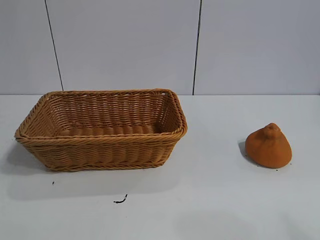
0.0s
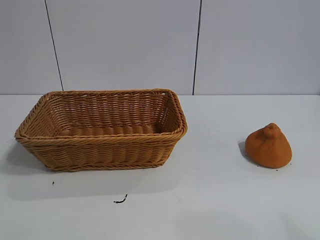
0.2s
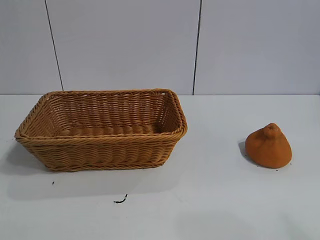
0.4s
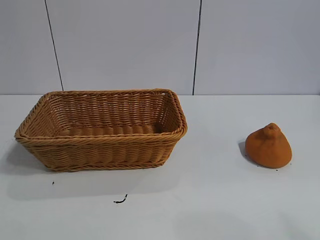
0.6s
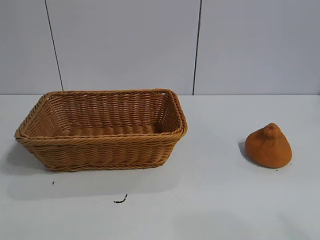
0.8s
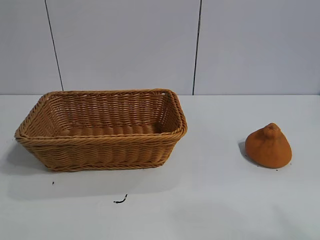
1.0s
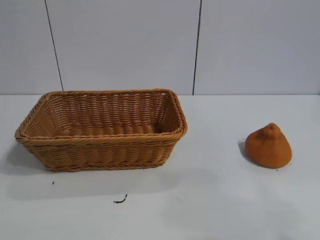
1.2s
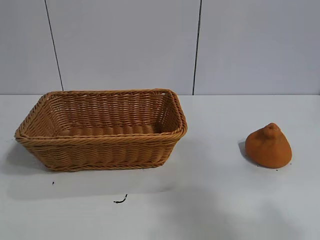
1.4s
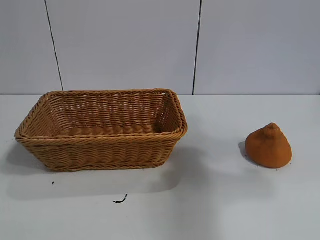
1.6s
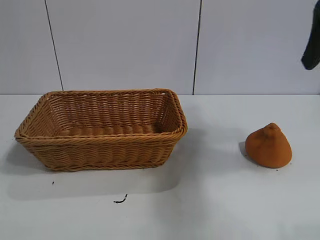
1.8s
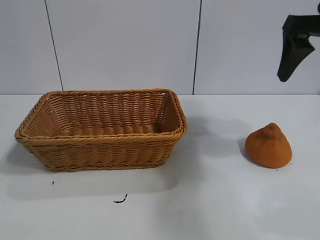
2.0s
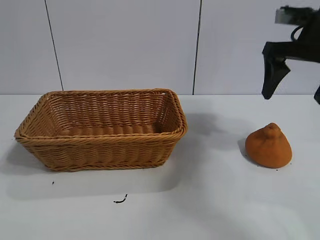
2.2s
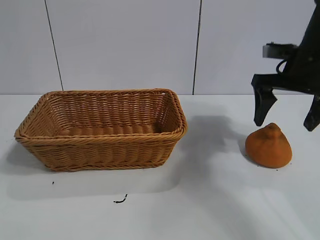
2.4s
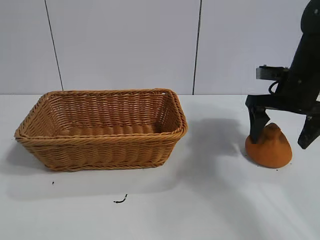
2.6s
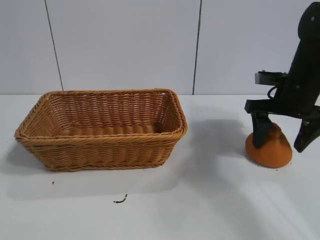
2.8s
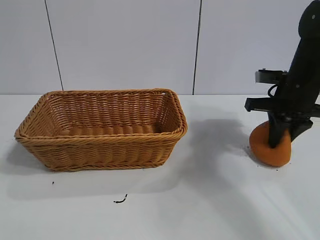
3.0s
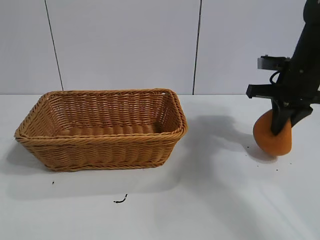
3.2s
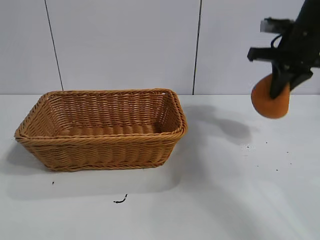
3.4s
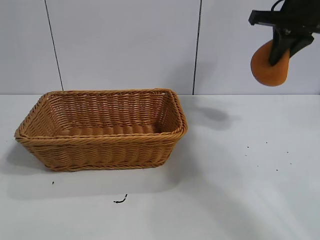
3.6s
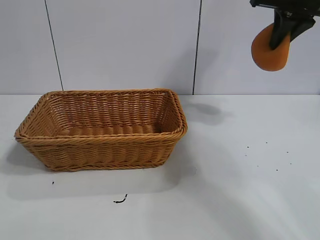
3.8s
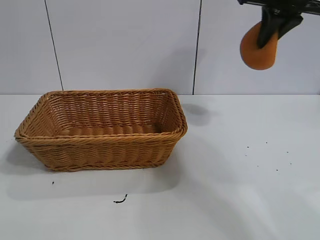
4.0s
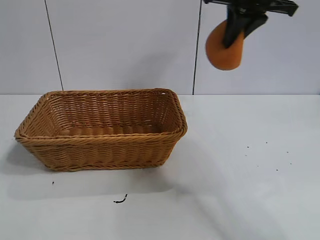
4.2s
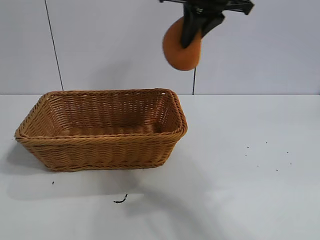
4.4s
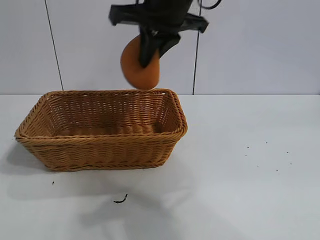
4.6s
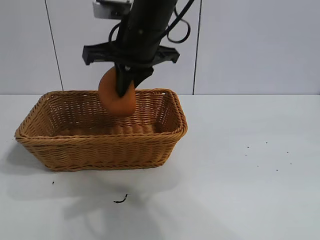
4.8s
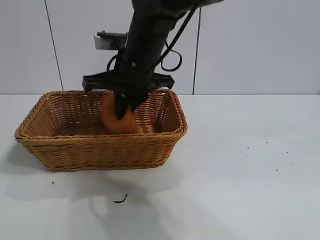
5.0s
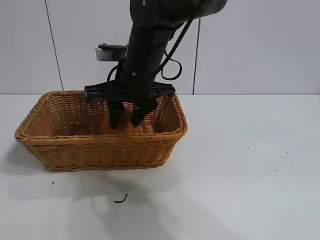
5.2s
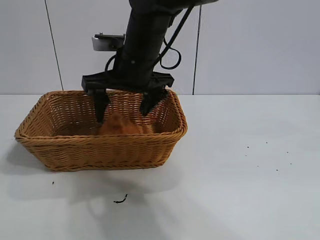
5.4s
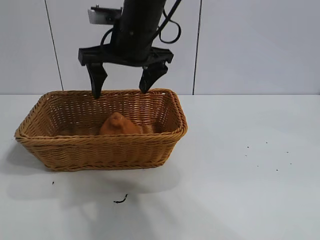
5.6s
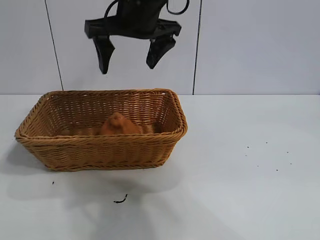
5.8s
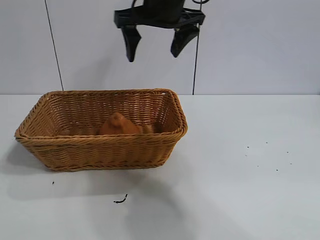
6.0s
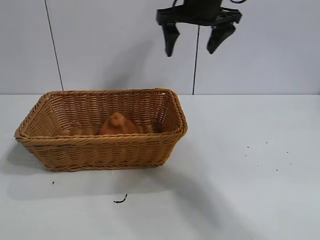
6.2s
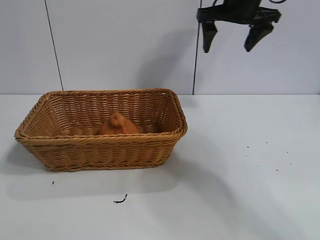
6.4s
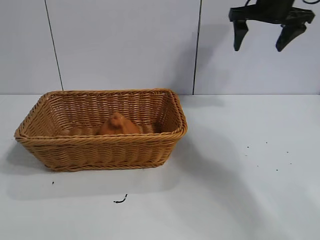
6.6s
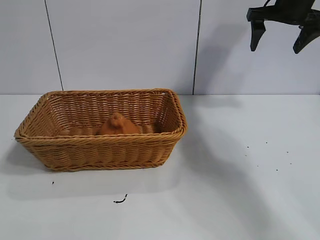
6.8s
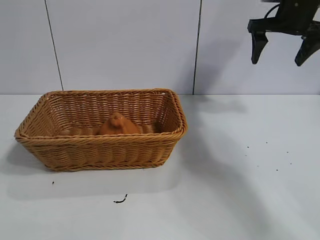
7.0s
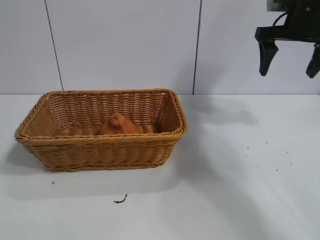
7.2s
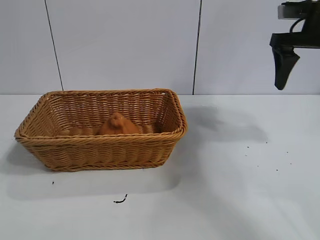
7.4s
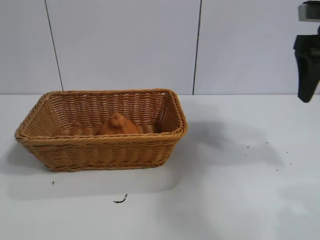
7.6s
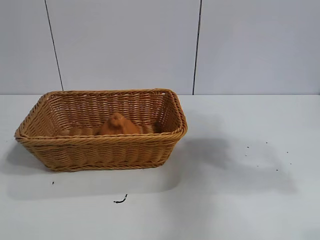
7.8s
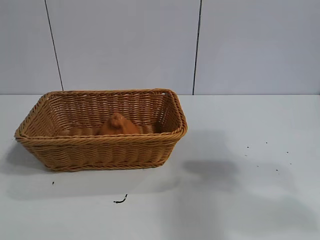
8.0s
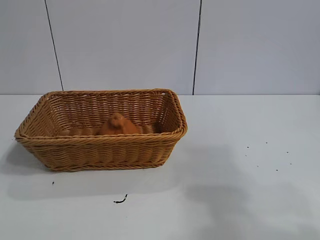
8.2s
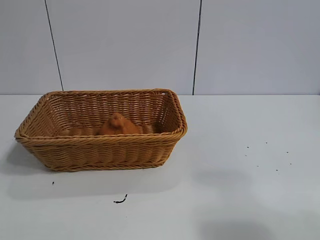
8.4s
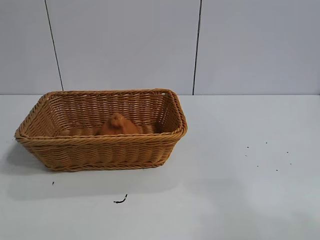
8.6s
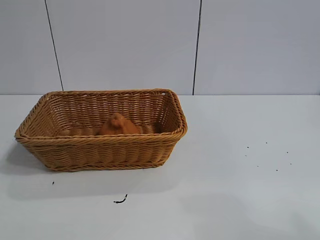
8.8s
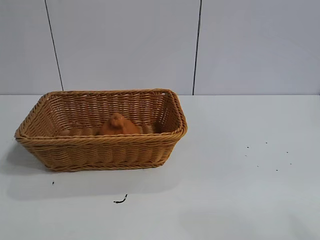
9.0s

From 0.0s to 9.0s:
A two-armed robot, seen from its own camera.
Task of the whole recording: pick up the orange and put it into the basket.
Step, from 0.6s to 2.8s: Grasp the orange with right gripper.
Step, from 3.2s to 5.2s: Place the orange in the basket with right gripper.

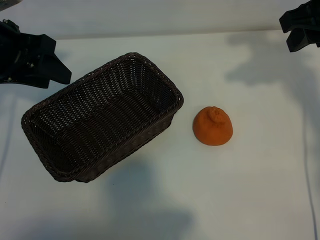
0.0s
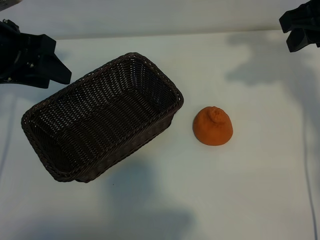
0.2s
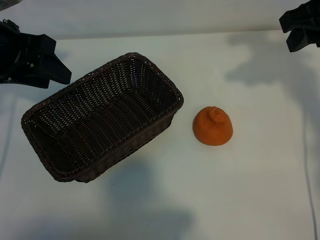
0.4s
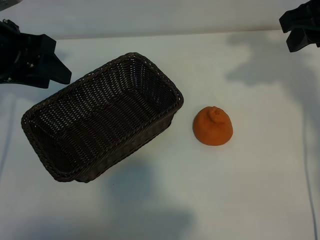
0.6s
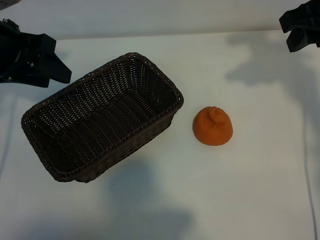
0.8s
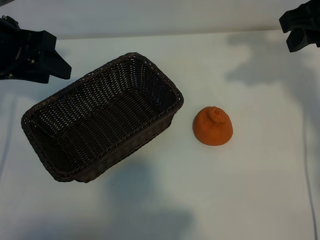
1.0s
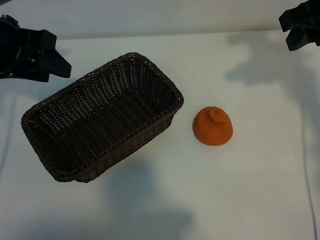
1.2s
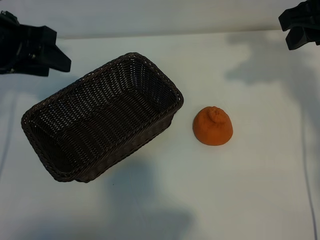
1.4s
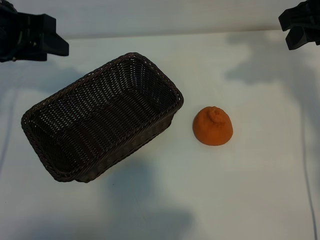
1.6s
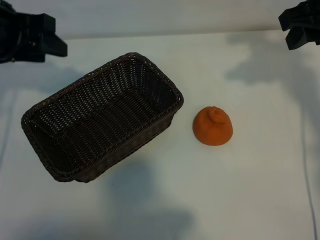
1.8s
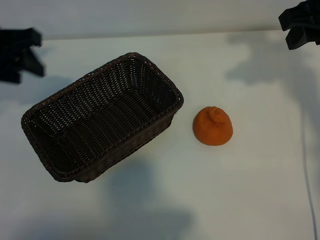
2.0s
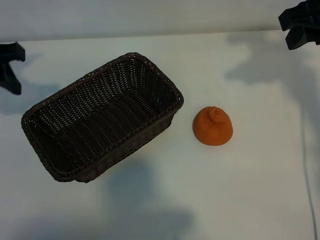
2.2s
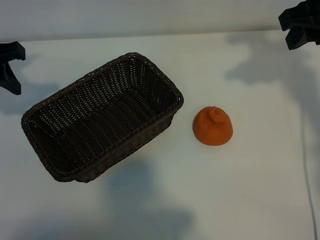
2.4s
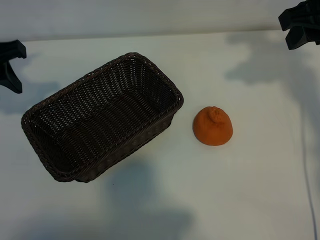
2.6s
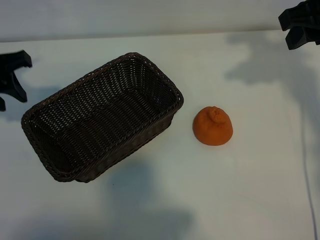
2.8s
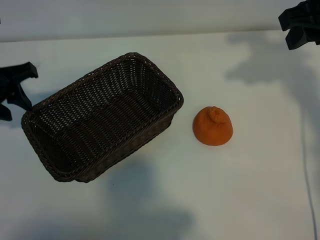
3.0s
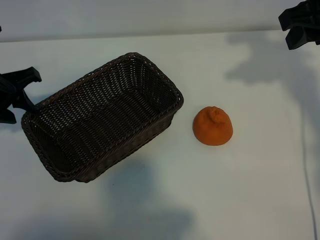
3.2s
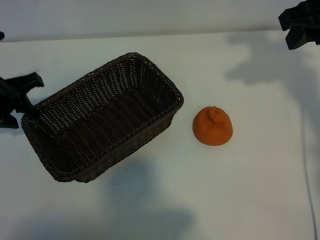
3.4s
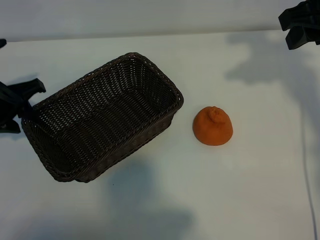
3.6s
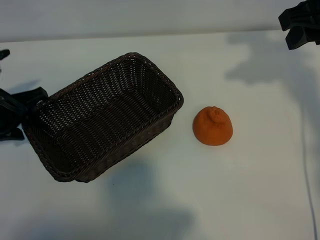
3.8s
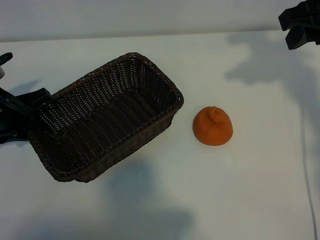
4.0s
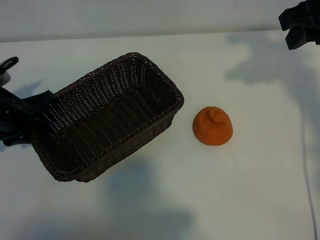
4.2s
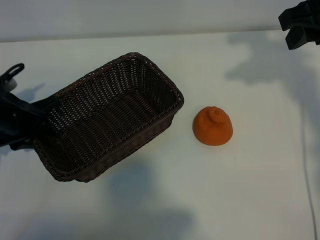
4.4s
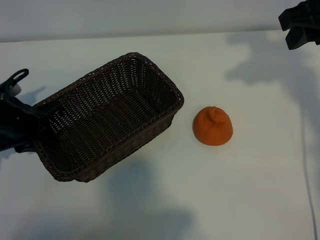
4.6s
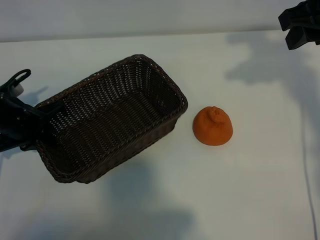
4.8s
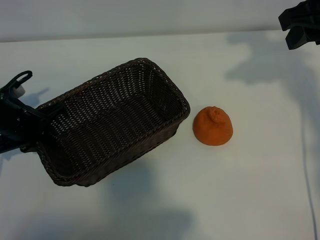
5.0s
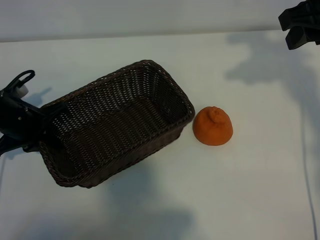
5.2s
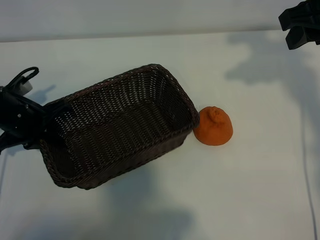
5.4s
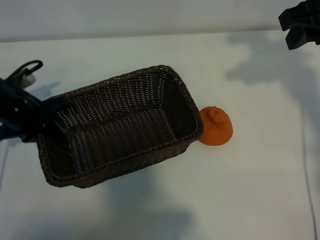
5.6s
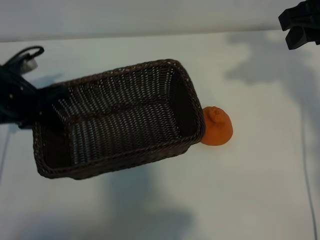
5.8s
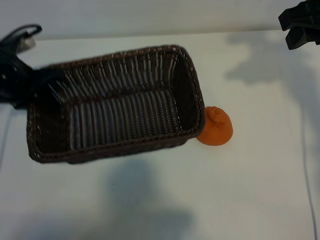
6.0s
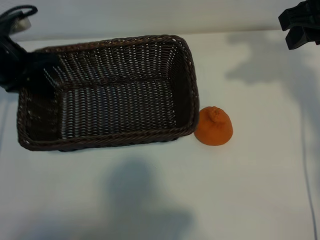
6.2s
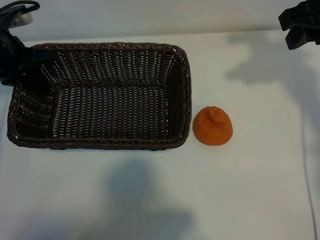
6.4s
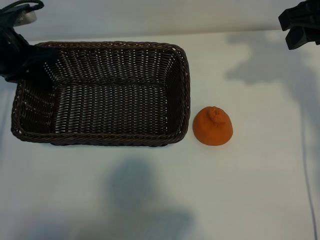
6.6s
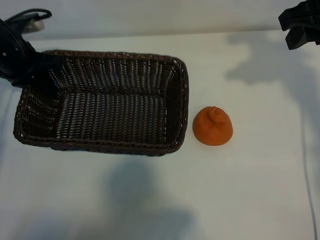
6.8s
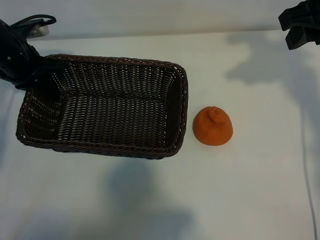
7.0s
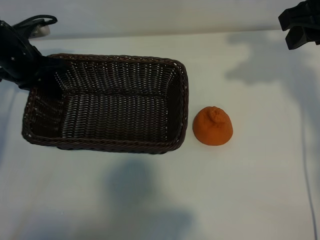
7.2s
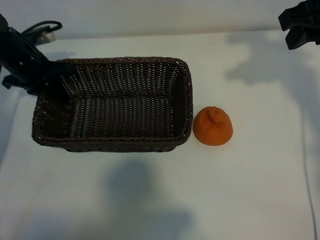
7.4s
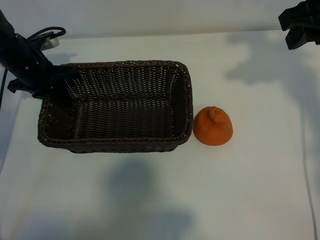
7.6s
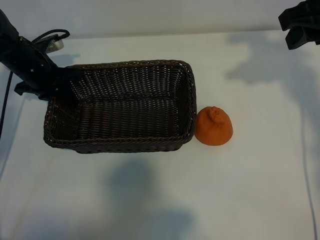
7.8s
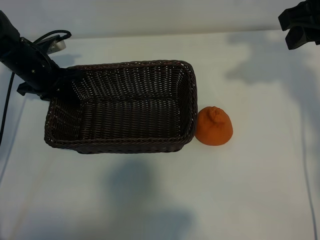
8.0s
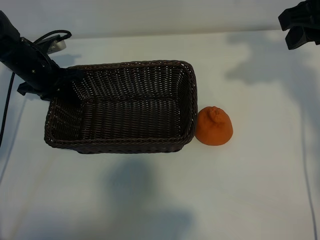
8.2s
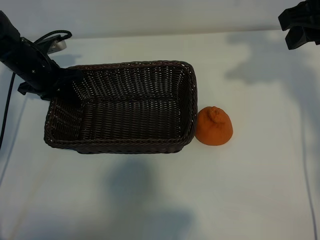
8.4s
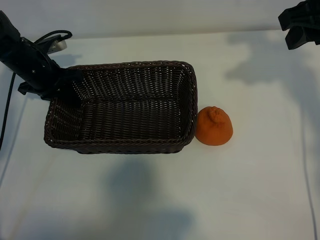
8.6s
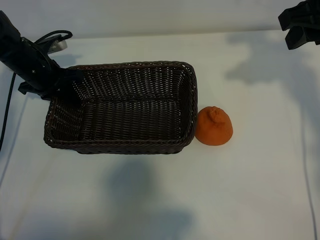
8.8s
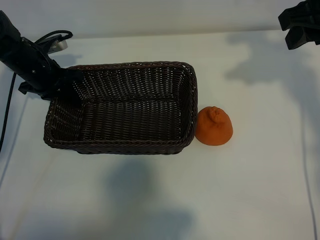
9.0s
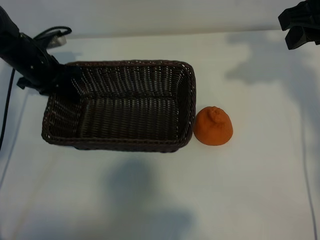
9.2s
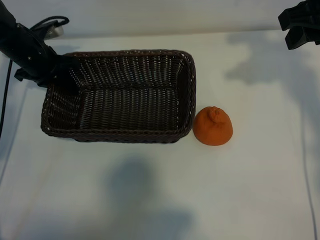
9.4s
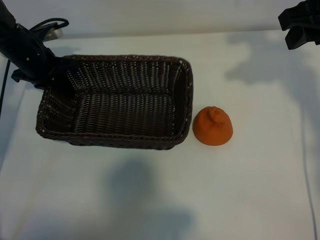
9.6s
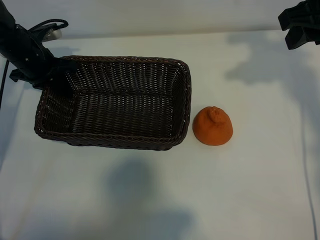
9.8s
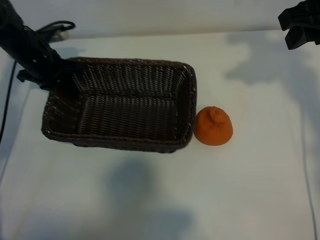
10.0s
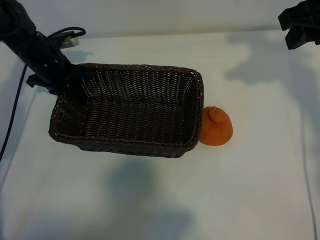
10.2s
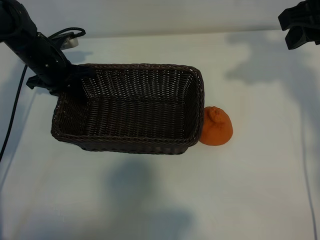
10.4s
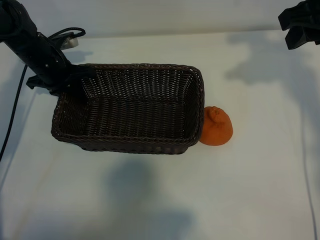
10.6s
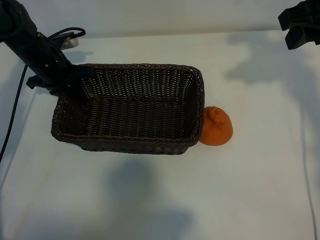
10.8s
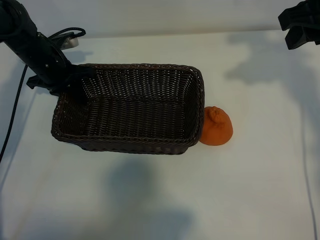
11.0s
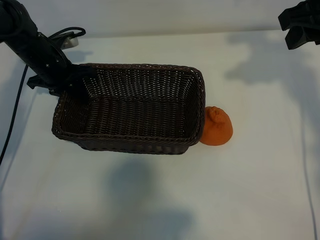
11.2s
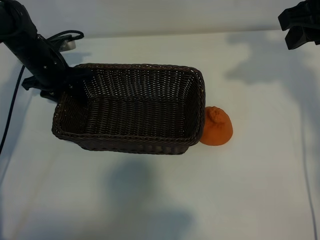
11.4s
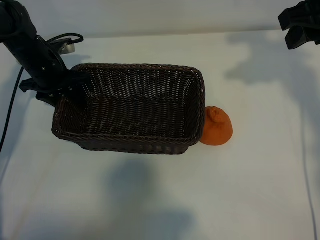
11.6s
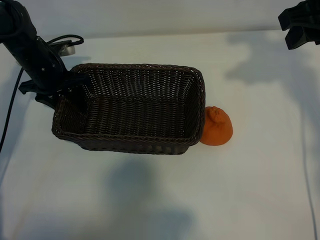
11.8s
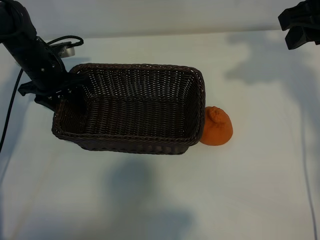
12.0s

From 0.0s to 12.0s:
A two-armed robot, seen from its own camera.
Task of the whole recording: pick up the orange and put it into the basket.
Step, from 0.8s to 4.6s: Grasp the basket with left gripper.
Step, from 4.8s to 11.2s: Place the basket in the center of view with left gripper.

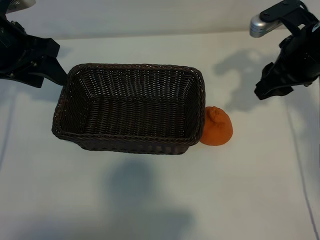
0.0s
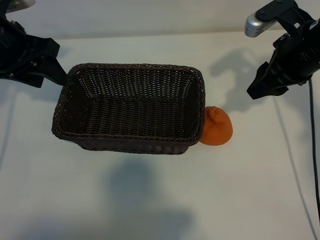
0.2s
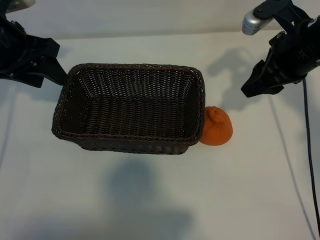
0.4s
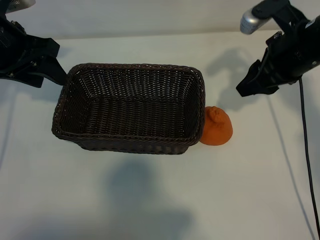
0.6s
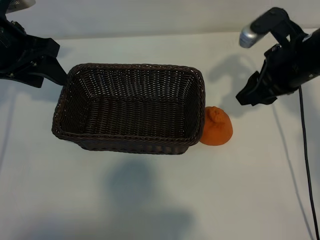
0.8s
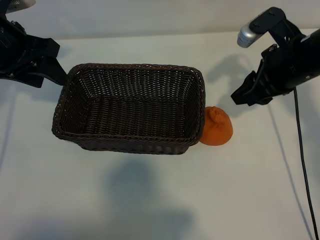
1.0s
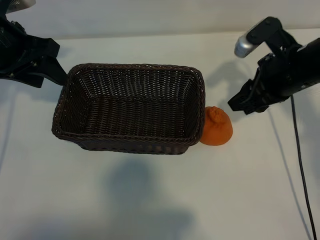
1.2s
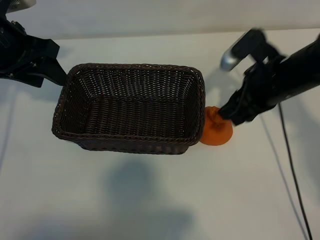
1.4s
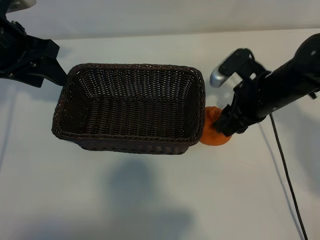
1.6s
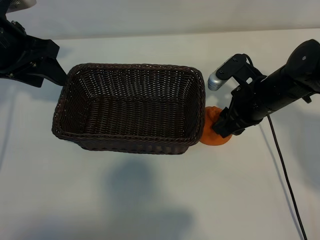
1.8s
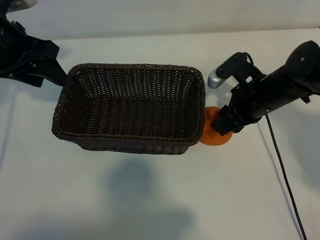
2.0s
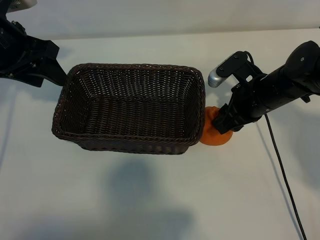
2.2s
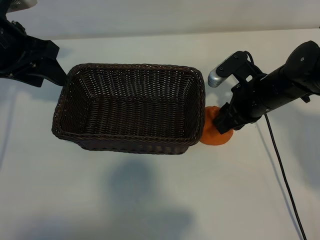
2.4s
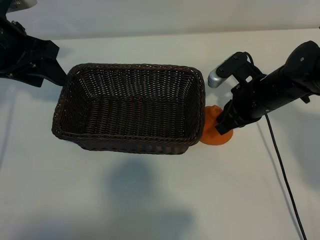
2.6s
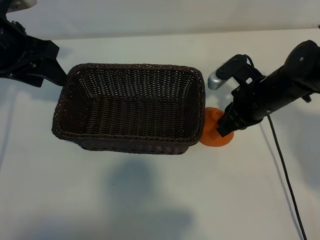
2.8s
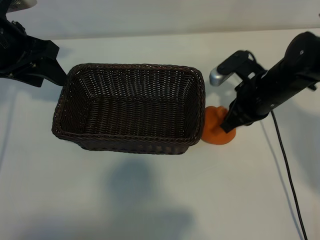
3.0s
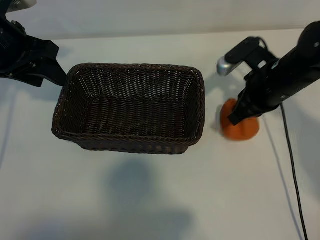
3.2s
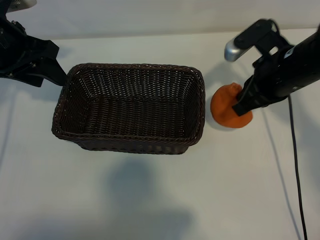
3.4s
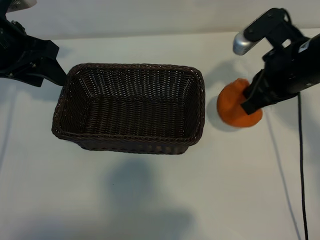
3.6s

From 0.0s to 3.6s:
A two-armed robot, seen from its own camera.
Task of the whole recording: pick up the orange and put it into the basket.
Step, from 0.0s to 2.4s: Grasp the orange with right gripper.
